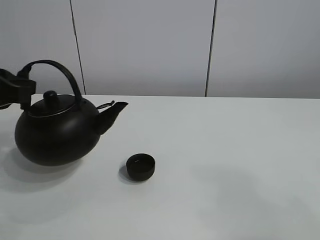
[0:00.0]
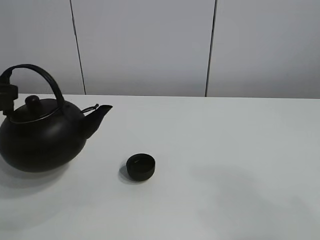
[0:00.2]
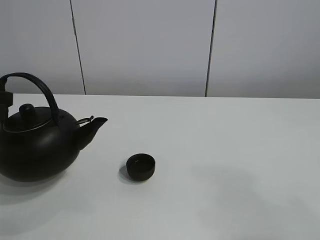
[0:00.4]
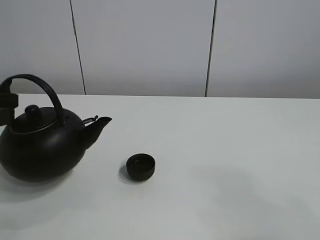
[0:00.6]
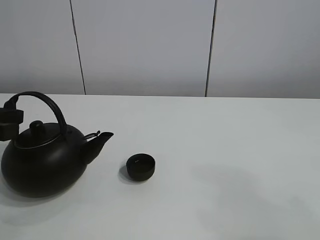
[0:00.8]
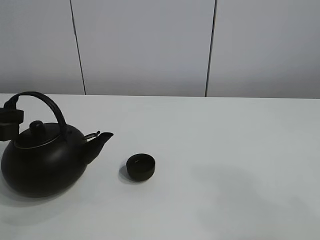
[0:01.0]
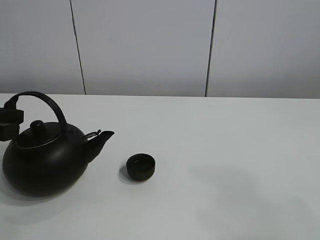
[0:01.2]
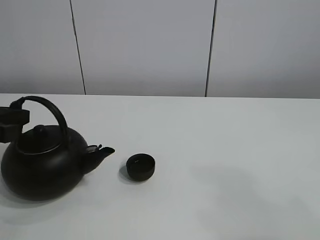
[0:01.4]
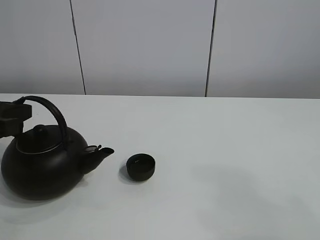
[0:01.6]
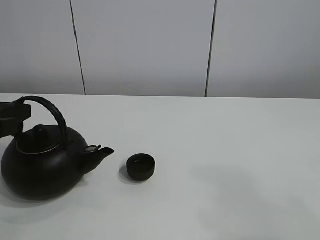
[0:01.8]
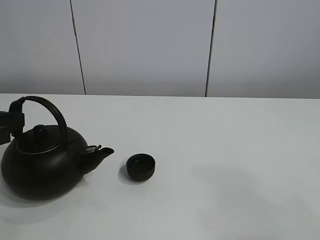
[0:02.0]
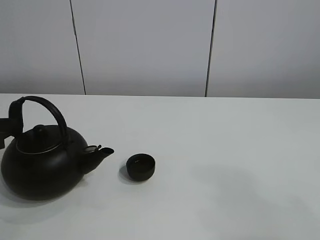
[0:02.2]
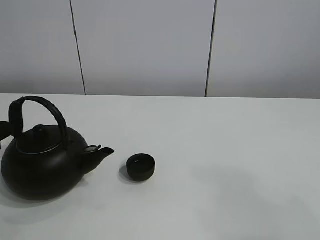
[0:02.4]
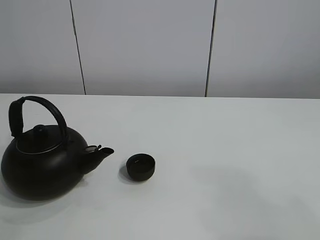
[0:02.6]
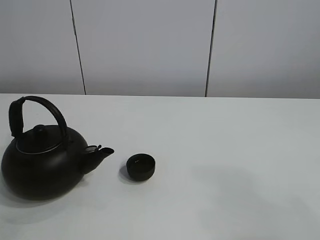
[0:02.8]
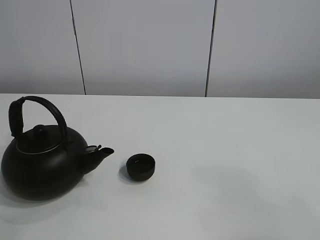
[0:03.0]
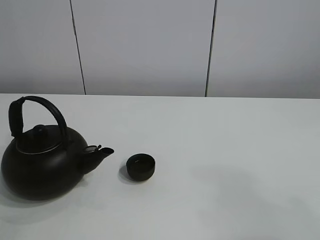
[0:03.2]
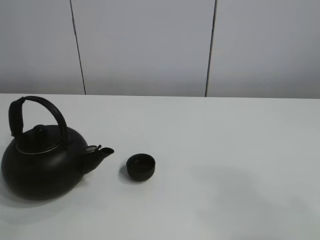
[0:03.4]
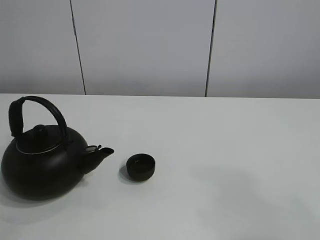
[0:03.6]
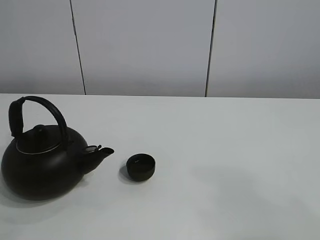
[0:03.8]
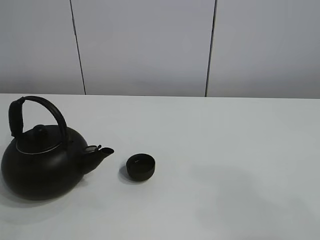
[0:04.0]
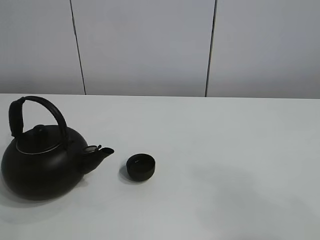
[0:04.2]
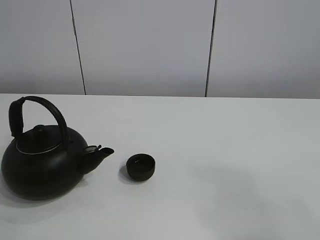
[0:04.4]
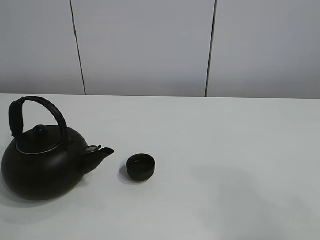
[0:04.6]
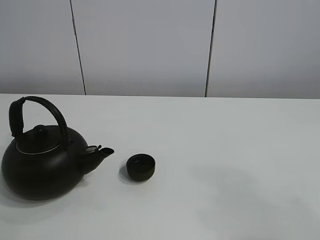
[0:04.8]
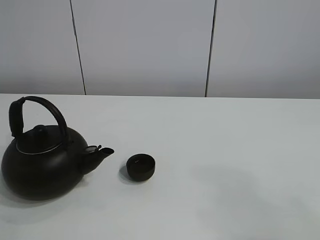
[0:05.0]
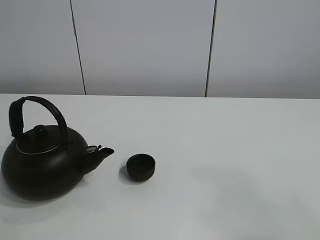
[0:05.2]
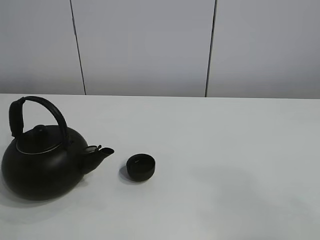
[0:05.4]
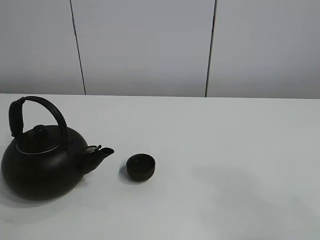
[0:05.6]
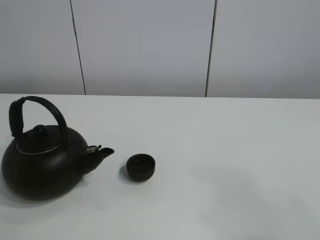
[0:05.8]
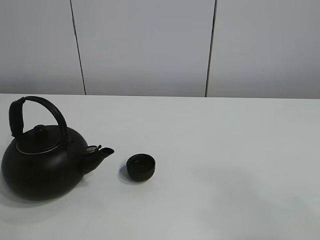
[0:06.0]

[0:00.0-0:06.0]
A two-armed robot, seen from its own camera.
Task of the whole recording: pour tea into the teacup.
0:00.0 to 0:01.6: The left gripper opens up.

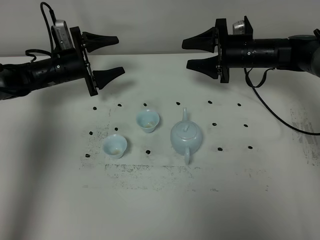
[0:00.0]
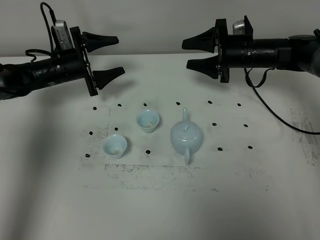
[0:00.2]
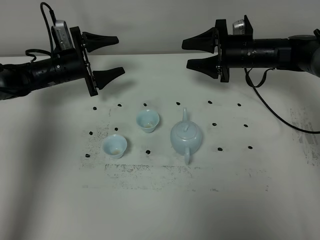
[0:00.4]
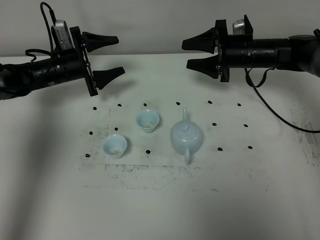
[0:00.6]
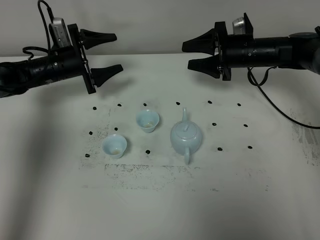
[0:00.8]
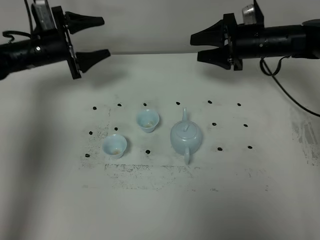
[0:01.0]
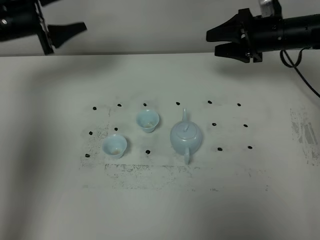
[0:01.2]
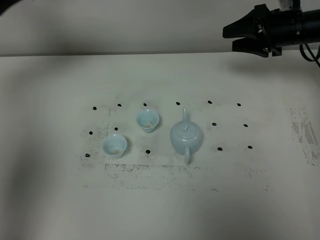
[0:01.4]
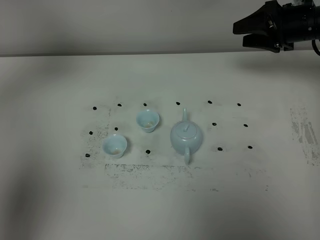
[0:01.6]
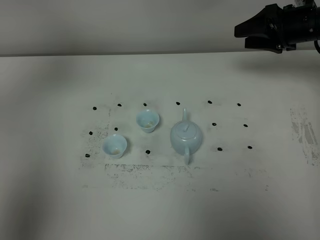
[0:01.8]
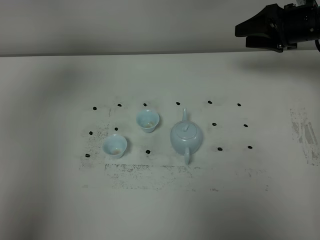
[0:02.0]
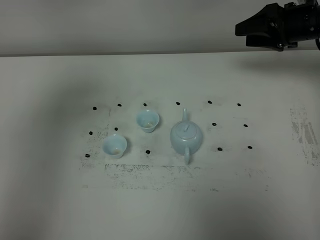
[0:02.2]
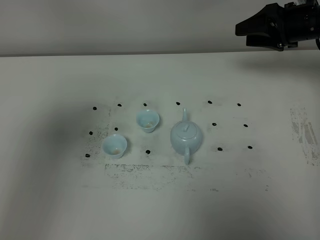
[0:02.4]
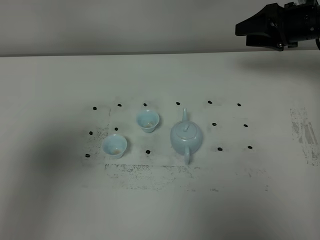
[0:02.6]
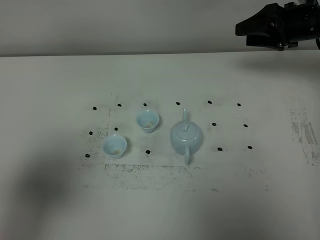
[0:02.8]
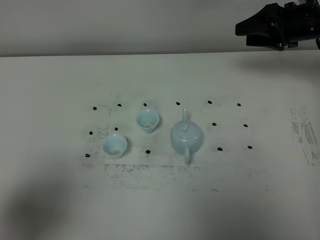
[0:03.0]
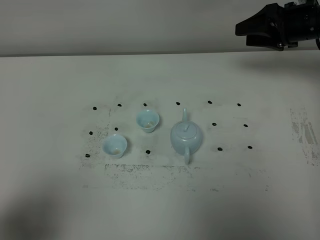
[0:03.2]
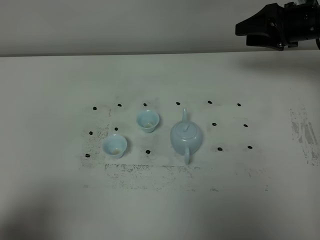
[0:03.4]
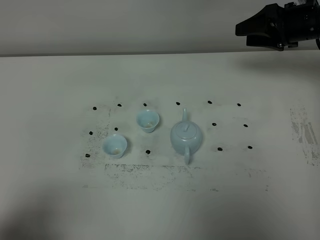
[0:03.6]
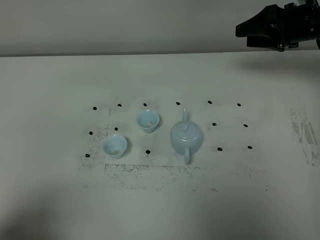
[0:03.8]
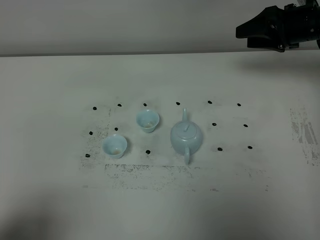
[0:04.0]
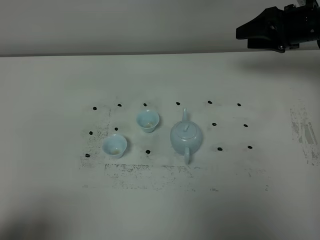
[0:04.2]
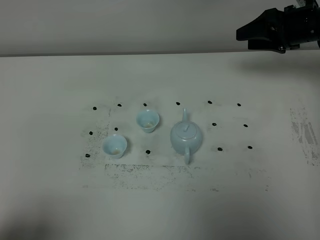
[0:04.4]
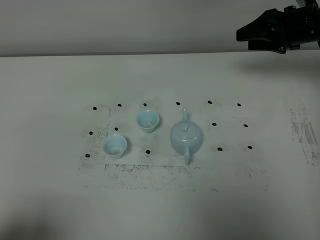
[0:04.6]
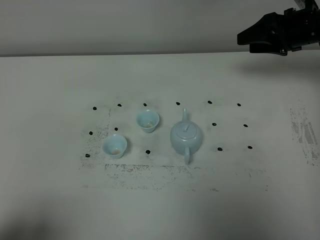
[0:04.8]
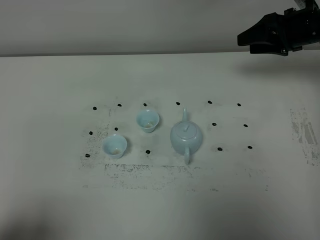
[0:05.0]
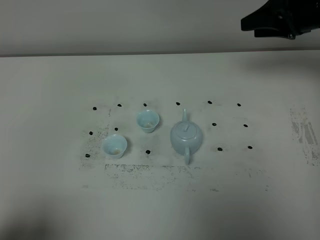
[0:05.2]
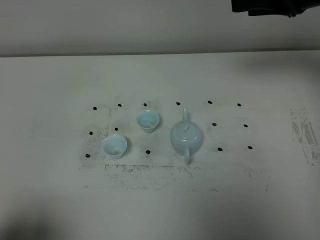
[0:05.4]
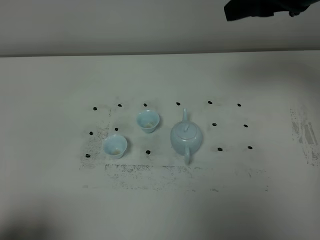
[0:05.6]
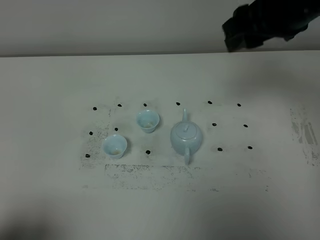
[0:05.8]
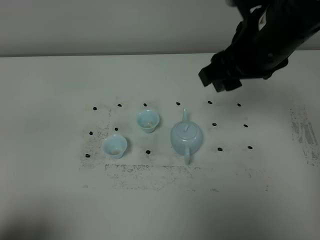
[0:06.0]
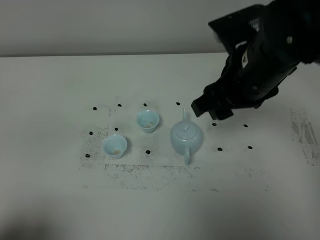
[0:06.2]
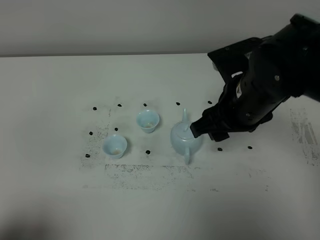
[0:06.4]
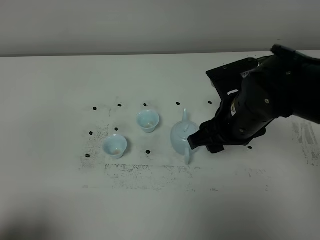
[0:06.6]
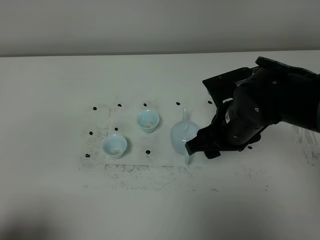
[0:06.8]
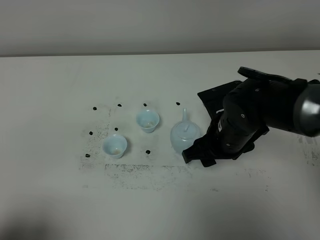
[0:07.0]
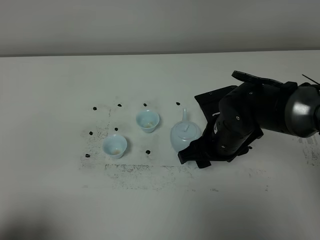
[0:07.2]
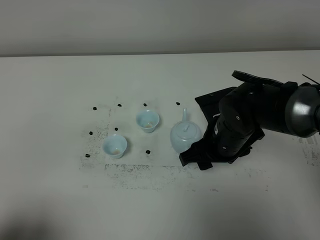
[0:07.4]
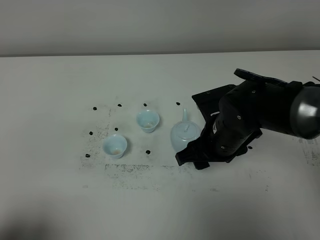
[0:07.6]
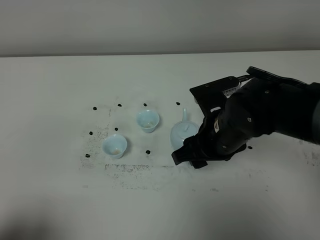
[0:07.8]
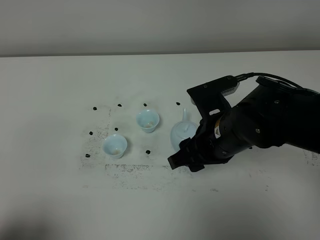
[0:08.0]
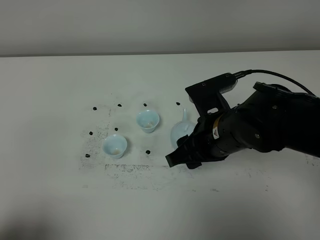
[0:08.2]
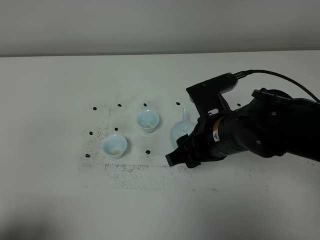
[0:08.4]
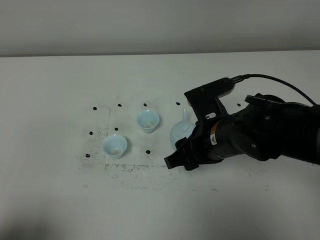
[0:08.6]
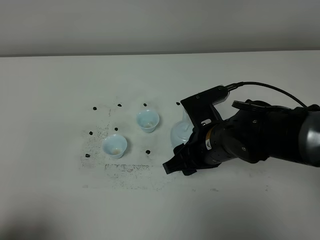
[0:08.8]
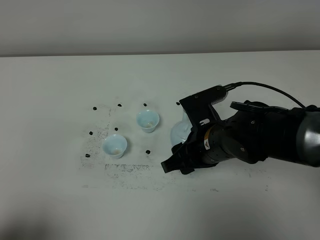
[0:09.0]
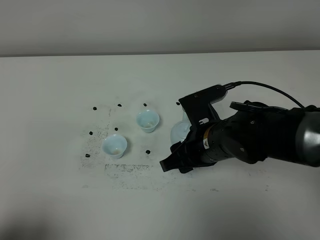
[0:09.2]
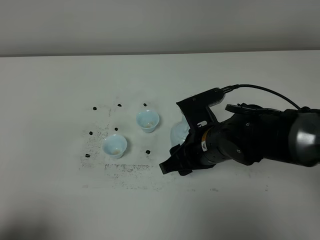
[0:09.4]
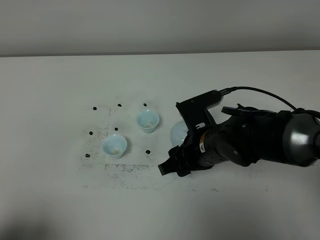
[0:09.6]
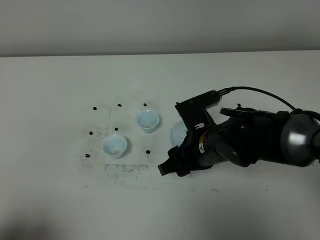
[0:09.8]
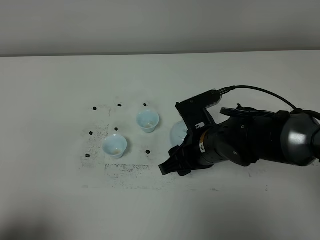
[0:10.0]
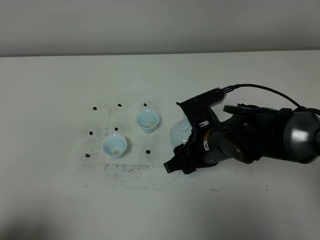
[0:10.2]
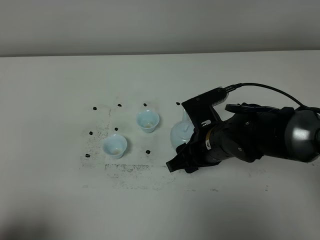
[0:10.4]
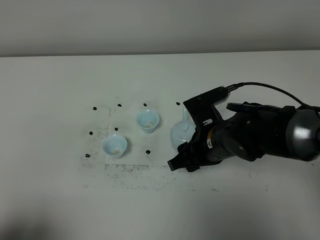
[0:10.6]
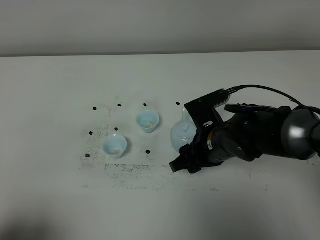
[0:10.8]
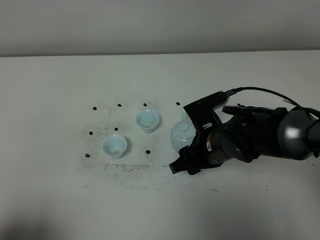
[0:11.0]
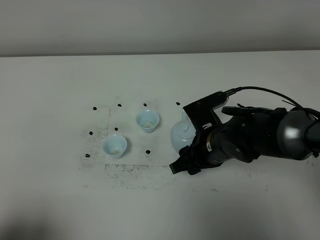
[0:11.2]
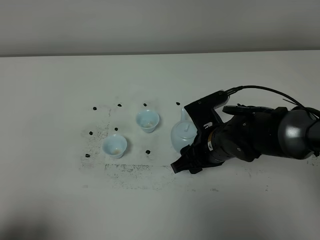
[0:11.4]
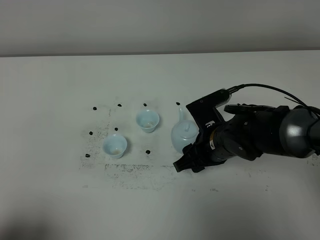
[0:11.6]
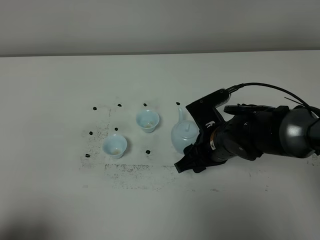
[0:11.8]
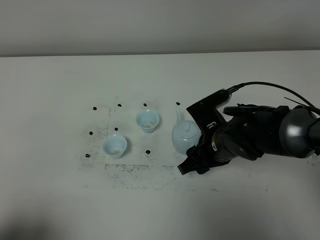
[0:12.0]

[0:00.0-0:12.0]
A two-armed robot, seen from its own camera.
Task of the whole recording: grasp the blue porcelain teapot and pour the tea into the two blue porcelain teacups one by one, put the blue porcelain teapot back in its original place.
0:00.0 to 0:01.6: The right gripper travels to the right and upward by roughly 10 cm; the left gripper goes about 40 cm upward, backward and to the left.
0:01.6 to 0:03.0: The left gripper heads backward and downward, covering some 30 cm.
0:03.0 to 0:04.4: The left gripper travels backward by approximately 5 cm.
0:04.4 to 0:06.0: The right gripper goes about 25 cm to the left, backward and upward.
0:06.0 to 0:07.6: The right gripper shifts about 15 cm downward.
0:07.6 to 0:12.0: The grippers stay close to where they were, moving slightly.

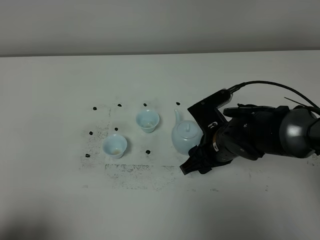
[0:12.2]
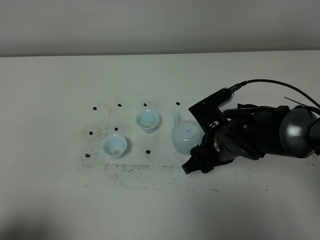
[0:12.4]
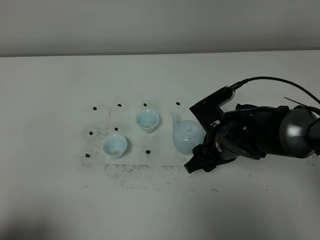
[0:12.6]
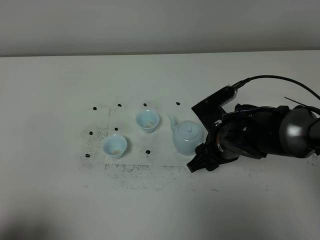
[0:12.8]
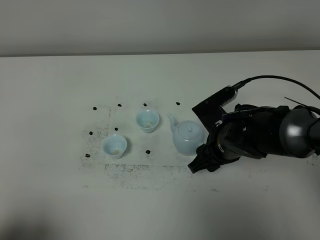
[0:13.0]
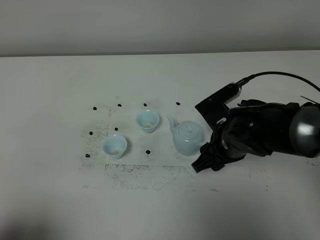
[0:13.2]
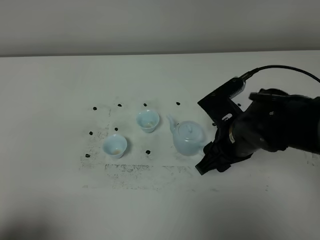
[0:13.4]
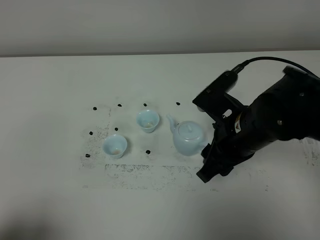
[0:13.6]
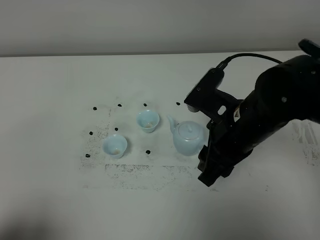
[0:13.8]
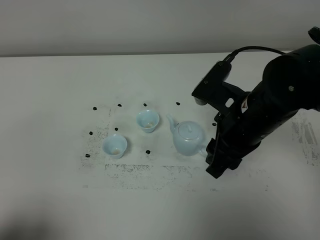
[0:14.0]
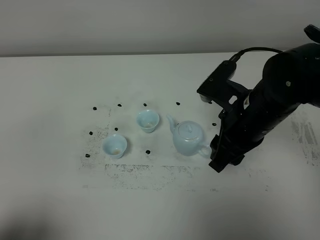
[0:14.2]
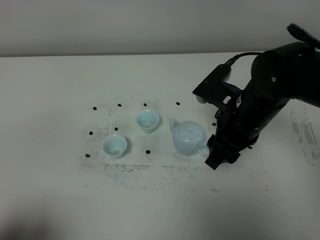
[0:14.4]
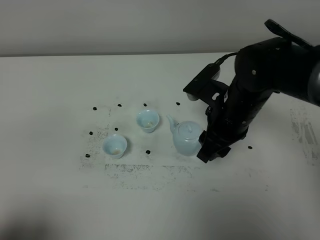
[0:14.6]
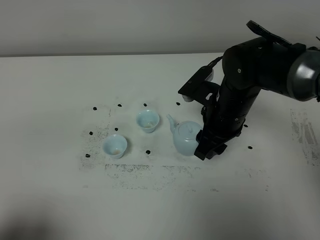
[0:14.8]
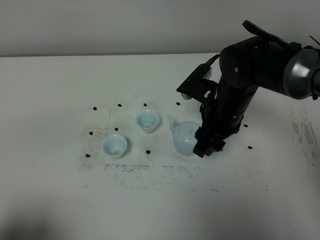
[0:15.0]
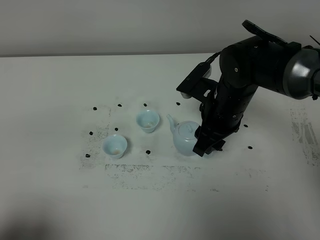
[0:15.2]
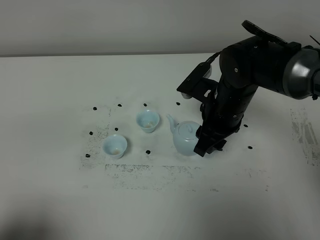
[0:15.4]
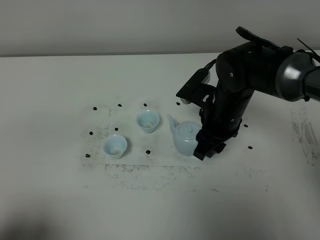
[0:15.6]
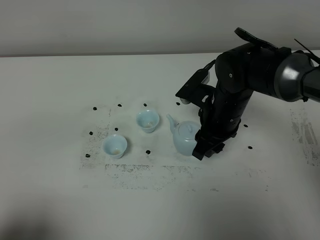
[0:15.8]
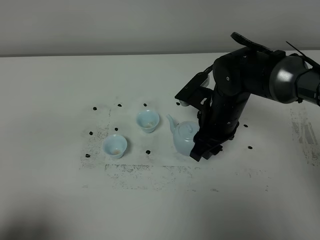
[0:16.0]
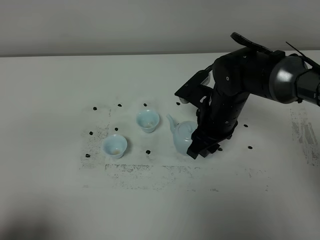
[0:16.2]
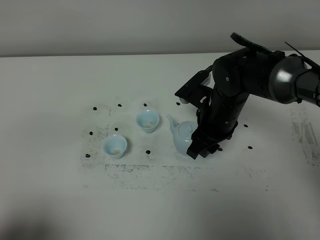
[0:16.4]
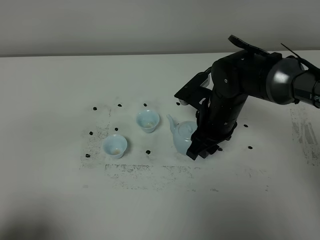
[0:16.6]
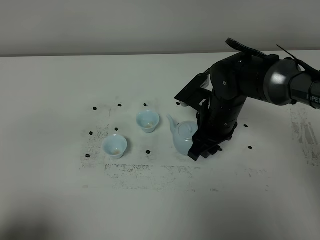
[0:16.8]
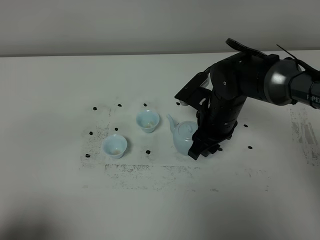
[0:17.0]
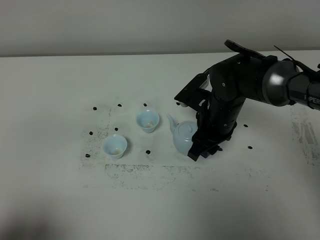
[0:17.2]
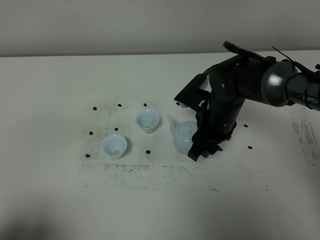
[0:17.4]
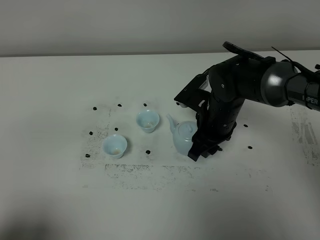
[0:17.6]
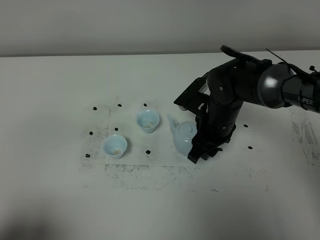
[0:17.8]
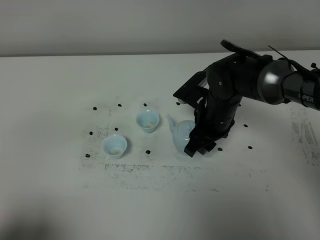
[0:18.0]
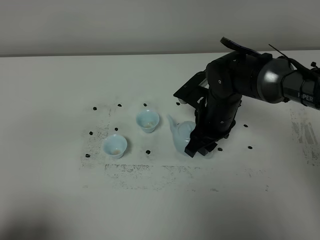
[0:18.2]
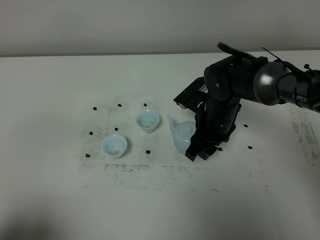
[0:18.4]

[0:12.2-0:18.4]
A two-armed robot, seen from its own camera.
Task of the whole recording: grasp the blue porcelain teapot and pour the tea into the two blue porcelain teacups one by one, put the blue porcelain teapot back in its original place.
0:12.2 to 0:13.8: The right gripper moves upward, roughly 10 cm.
0:13.8 to 0:15.4: The right gripper is displaced forward and downward by roughly 10 cm.
0:15.4 to 0:18.4: The grippers move only a little.
